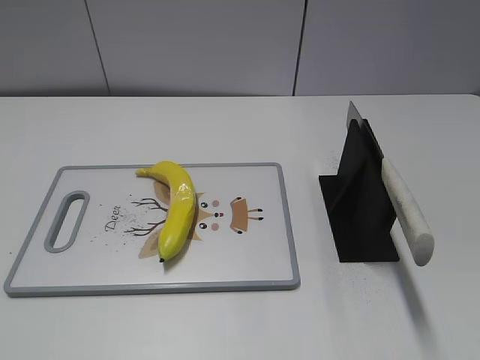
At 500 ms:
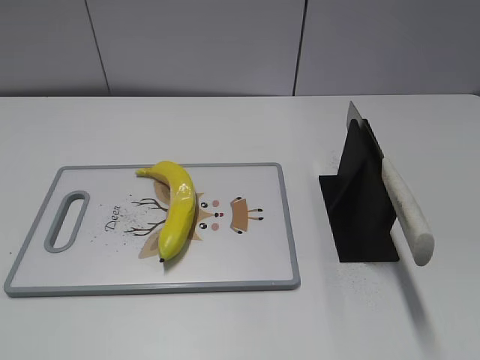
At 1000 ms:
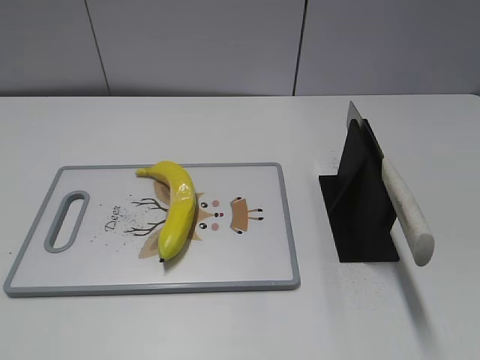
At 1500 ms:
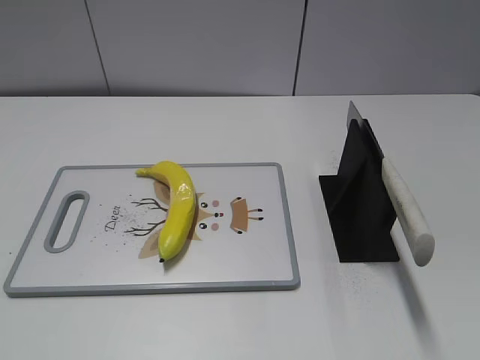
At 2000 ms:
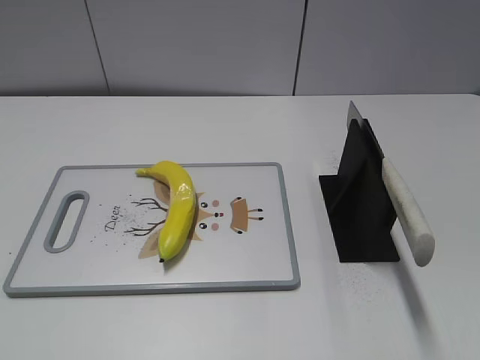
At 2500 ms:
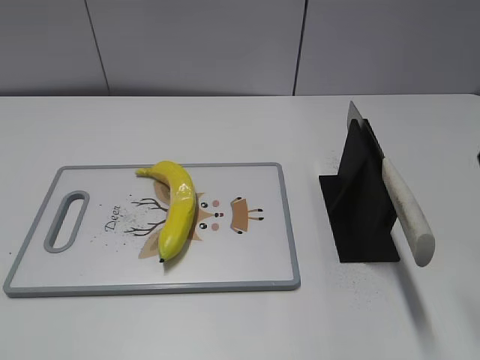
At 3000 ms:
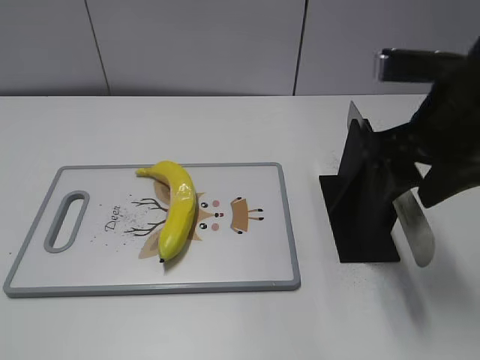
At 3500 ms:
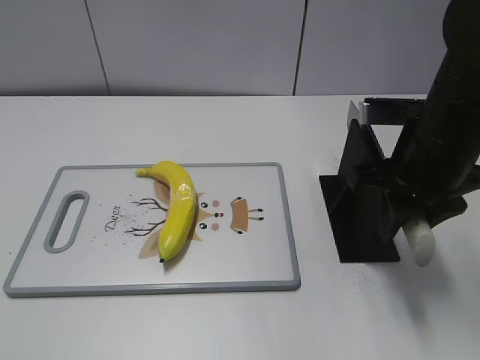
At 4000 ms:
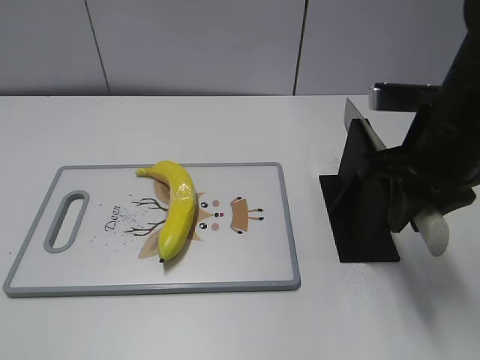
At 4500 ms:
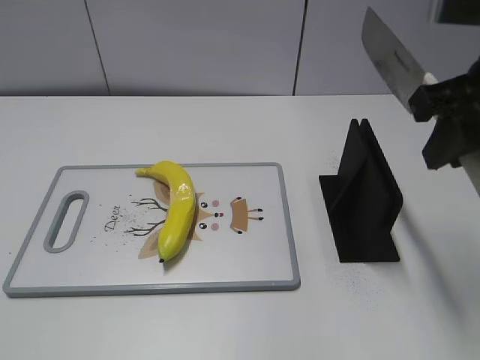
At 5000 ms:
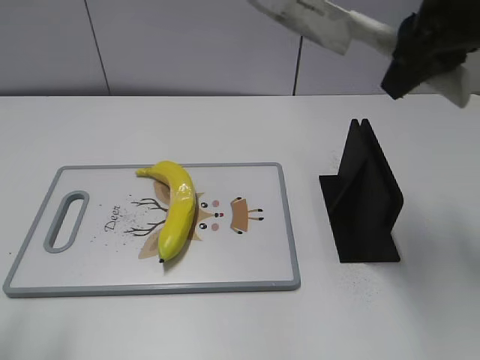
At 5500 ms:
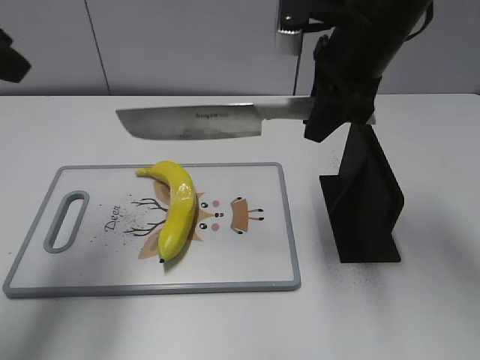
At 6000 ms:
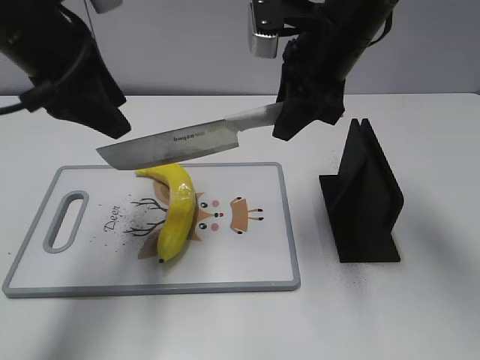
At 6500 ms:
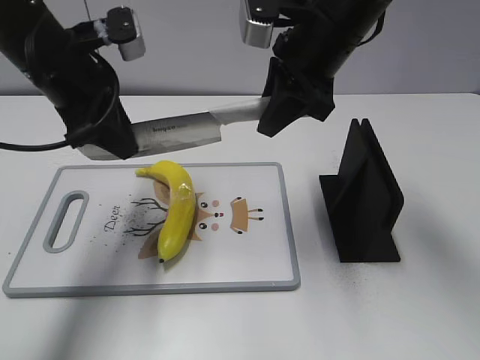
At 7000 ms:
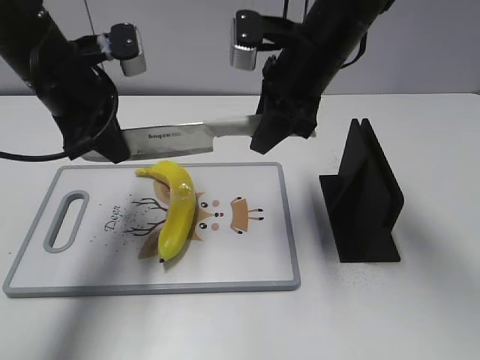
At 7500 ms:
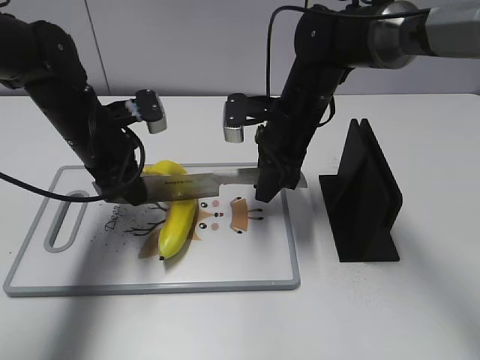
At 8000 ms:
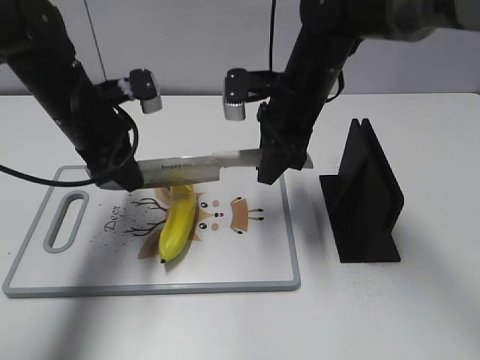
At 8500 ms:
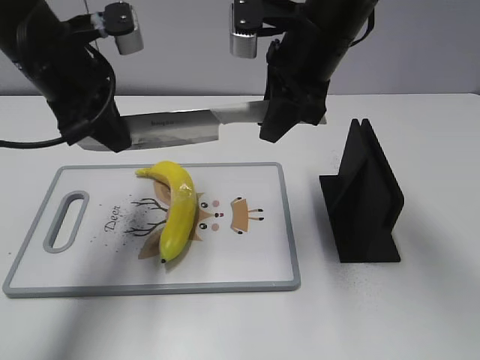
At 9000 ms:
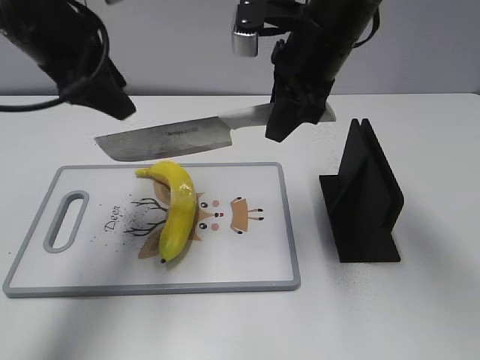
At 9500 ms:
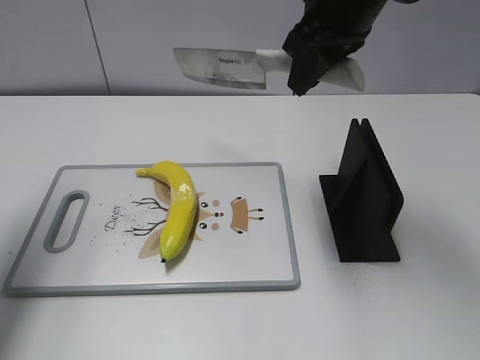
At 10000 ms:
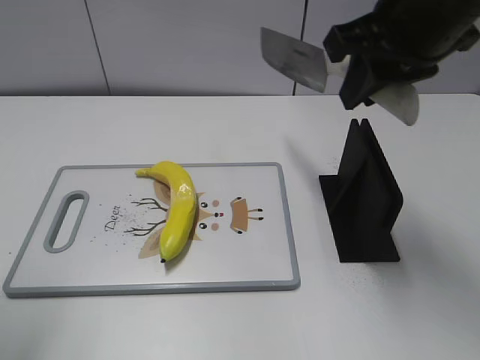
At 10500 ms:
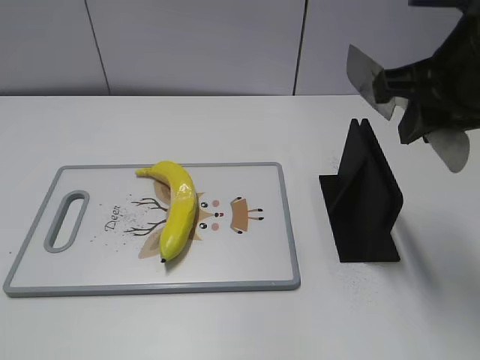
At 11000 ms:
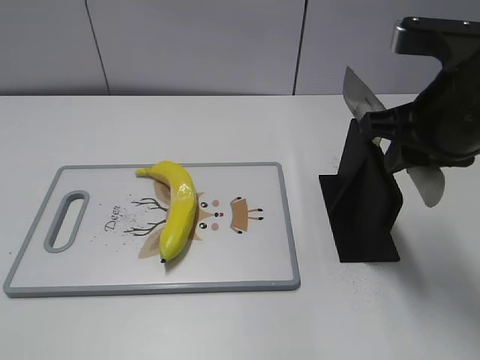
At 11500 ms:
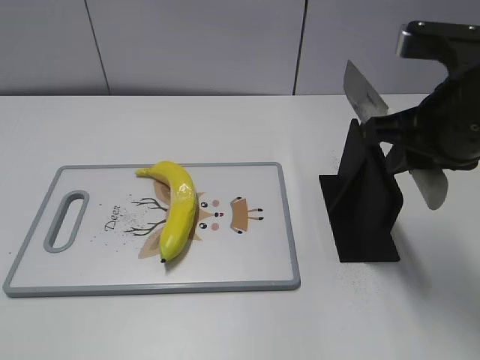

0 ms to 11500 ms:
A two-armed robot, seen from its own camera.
Task of the whole recording: cut plastic banana.
Step, 0 ms to 4000 ms: Grab the knife handle with your right hand.
Step, 5000 ms to 8000 ms: Lift the knife with your right hand.
Step, 8500 ms to 9500 ms: Cut the banana with your right hand.
Step, 10000 ms to 10500 ms: Lift the knife with your right hand.
2000 ms to 4000 ms: The right gripper goes roughly 25 cm forward, to the left and downward, and closes.
4000 ms to 6000 ms: The left gripper moves forward, some 35 cm. The right gripper goes roughly 15 cm forward and to the left.
6000 ms to 7500 ms: The two grippers go roughly 15 cm downward. The left gripper closes.
7500 ms to 9500 ms: The right gripper is displaced upward by approximately 20 cm. The left gripper is displaced upward and to the left by about 25 cm, and opens.
9500 ms to 11500 ms: The left gripper travels backward by about 30 cm; the right gripper goes approximately 15 cm backward, to the right and downward.

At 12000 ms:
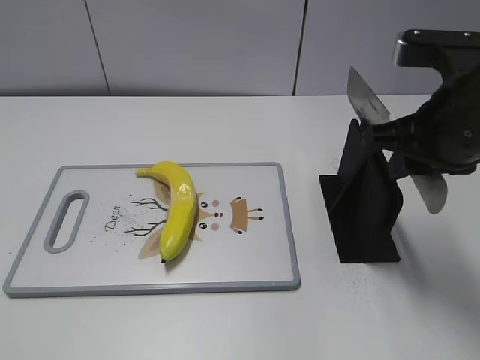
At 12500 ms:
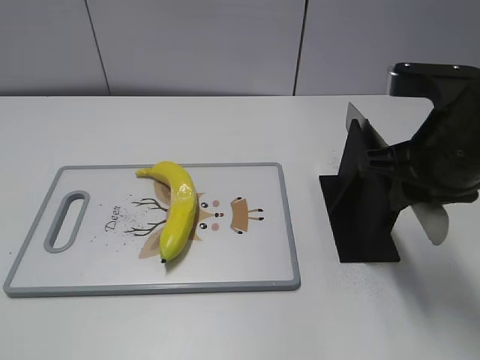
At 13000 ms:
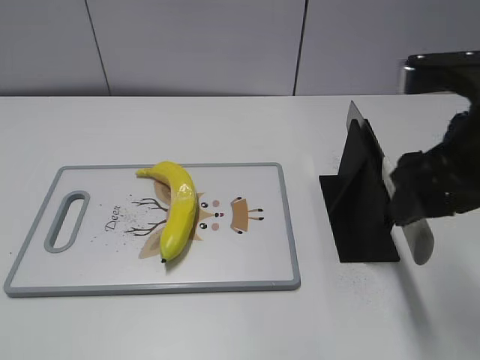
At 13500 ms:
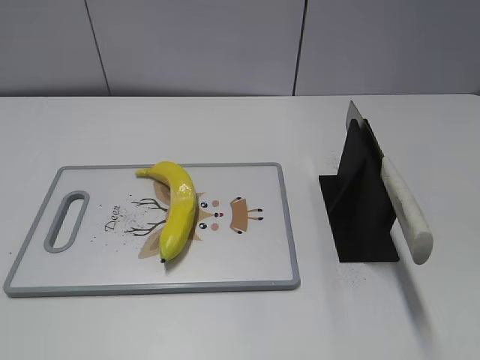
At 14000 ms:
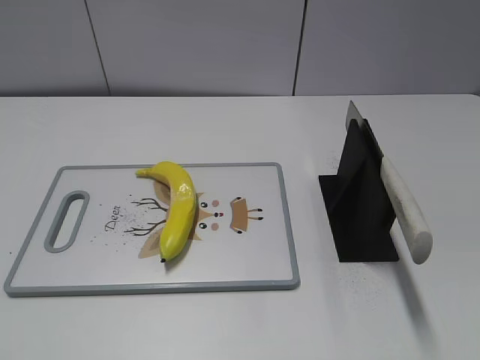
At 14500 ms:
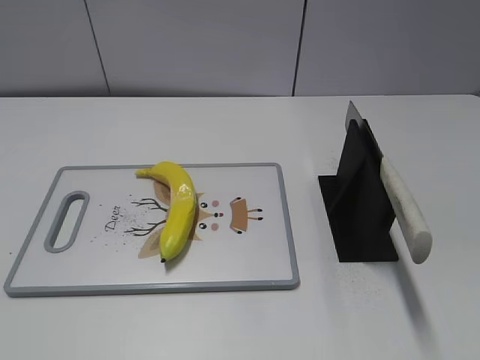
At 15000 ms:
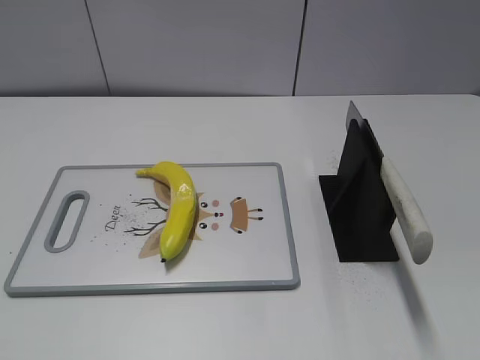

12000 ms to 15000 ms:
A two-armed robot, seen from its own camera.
Task of the whole recording: cut plastic banana.
Step, 12000 ms to 15000 ms: Place the knife on the storage rack with your right hand.
12000 ms to 13500 ms: The right gripper moves backward and to the right, roughly 20 cm, and opens up.
